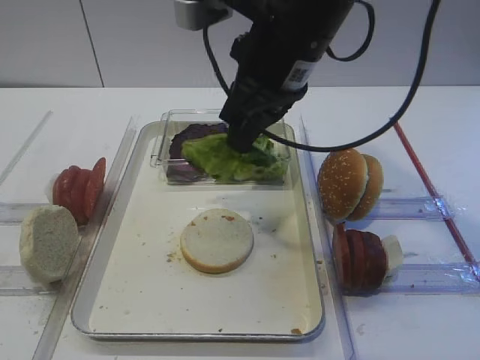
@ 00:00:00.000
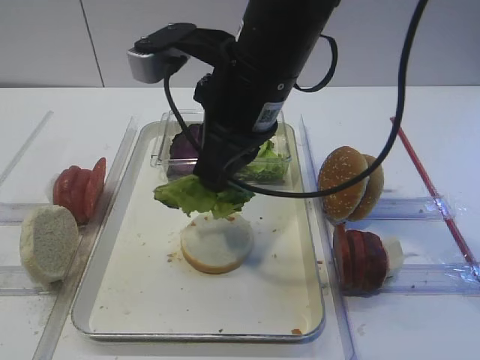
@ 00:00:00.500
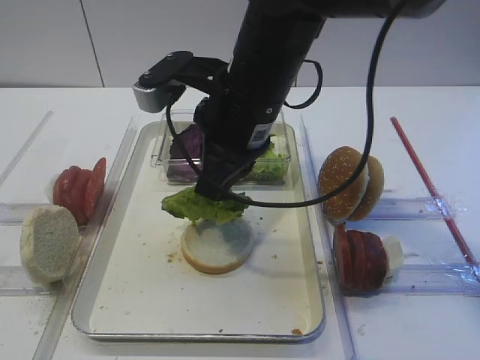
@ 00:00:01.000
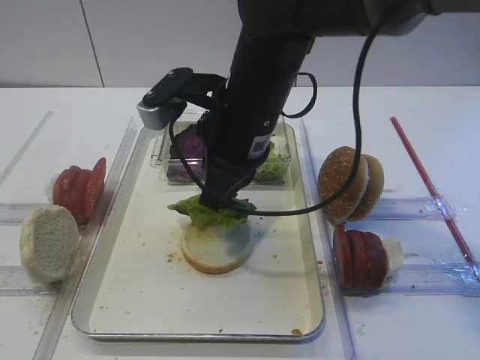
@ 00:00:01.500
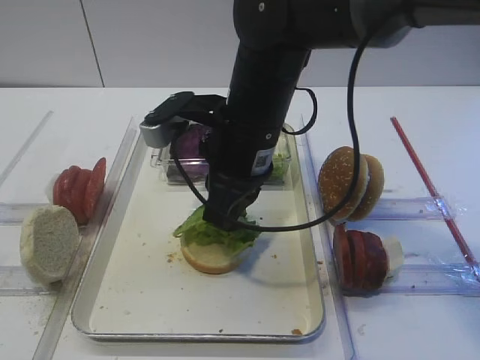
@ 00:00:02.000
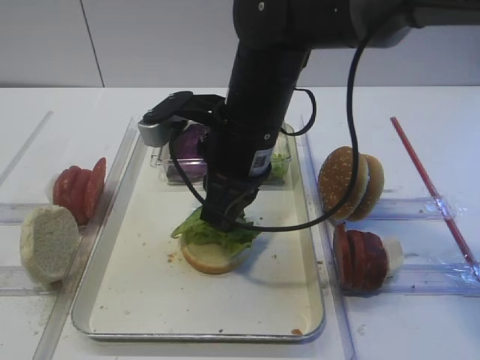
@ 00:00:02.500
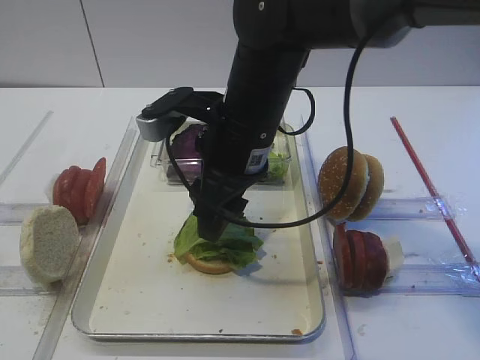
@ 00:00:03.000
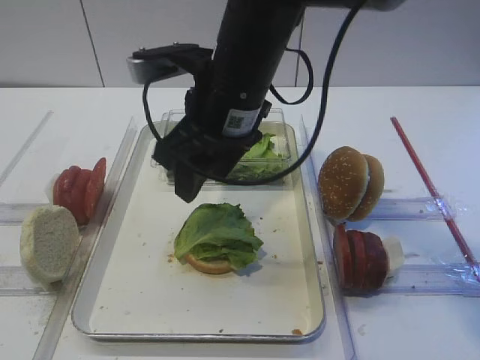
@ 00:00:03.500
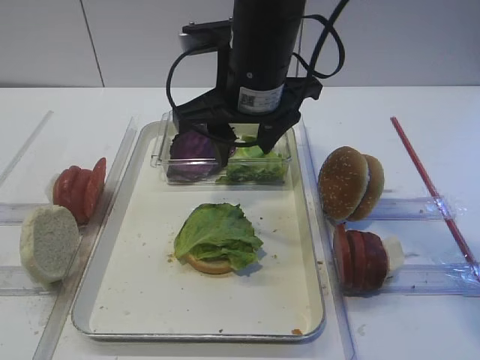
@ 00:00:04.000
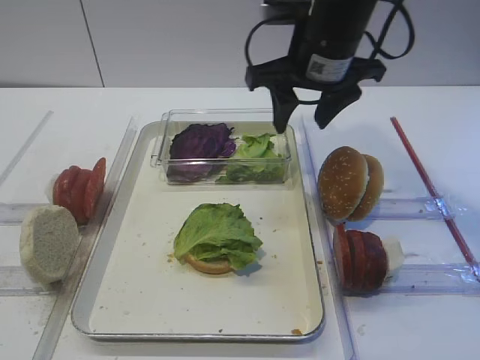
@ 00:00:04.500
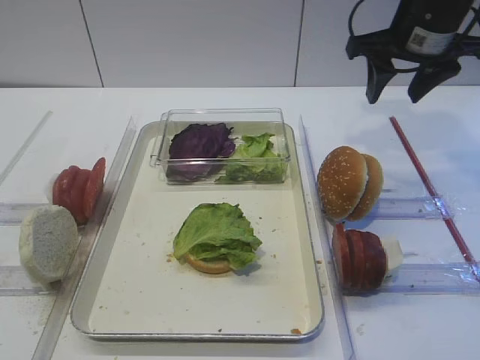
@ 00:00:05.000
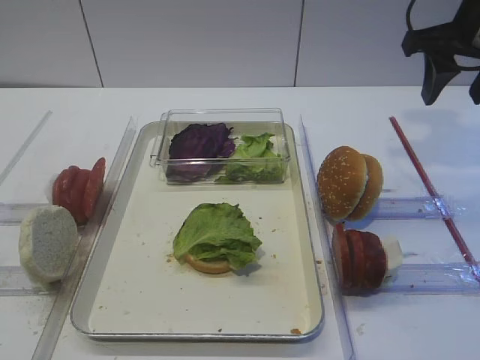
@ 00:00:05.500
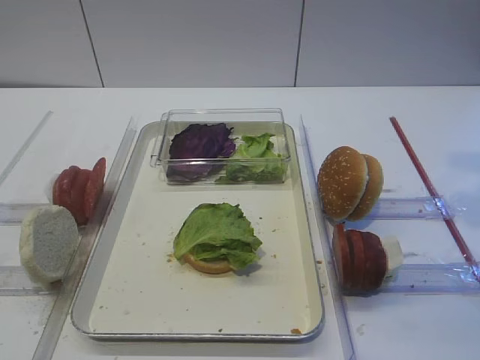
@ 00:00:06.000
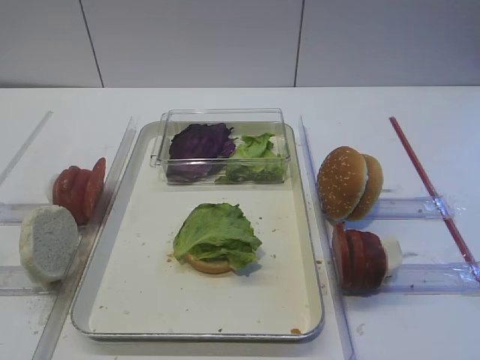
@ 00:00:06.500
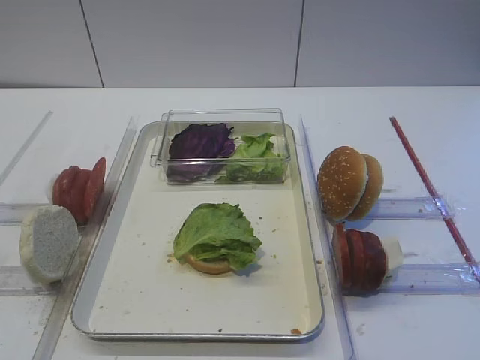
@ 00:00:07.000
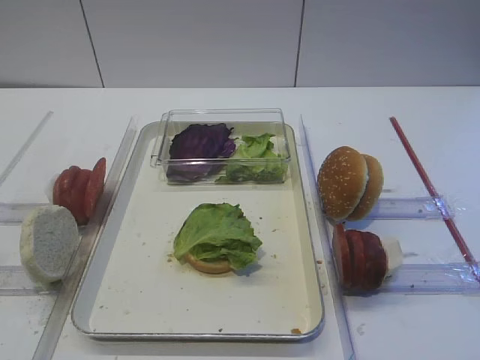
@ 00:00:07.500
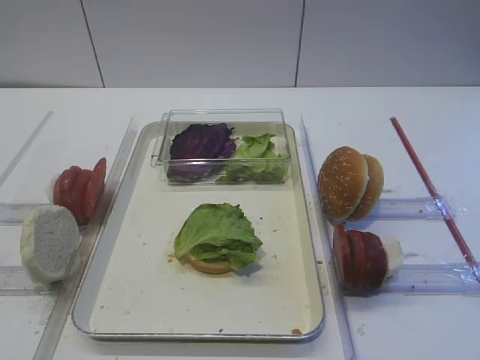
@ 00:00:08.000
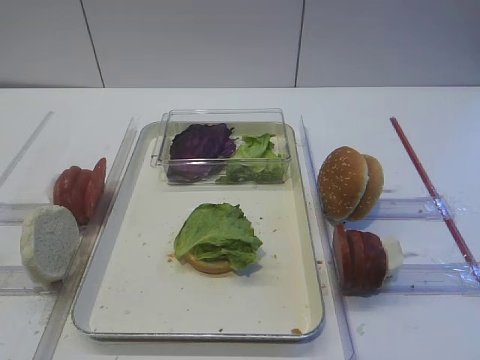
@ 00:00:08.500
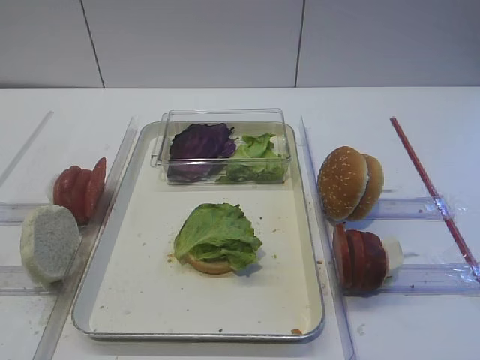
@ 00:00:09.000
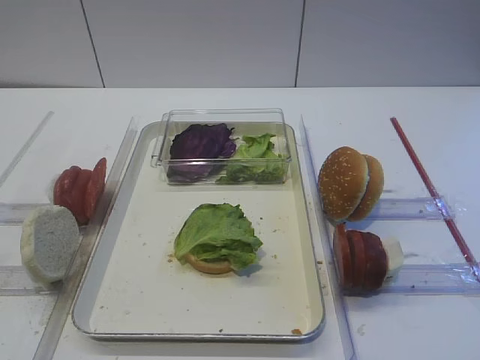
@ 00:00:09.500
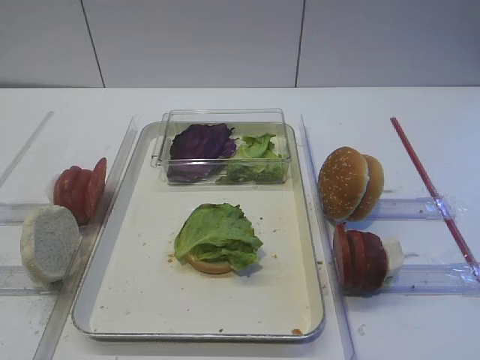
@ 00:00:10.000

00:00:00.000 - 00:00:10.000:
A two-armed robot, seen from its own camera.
Step, 00:00:00.000 - 00:00:03.000: Place the lettuce leaf on the bread slice with the right gripper.
00:00:00.000 - 00:00:02.000: The right gripper travels downward by approximately 10 cm.
00:00:02.000 - 00:00:04.000: The right gripper moves some 5 cm, and opens up.
00:00:04.000 - 00:00:06.000: The right gripper shifts about 25 cm to the right.
00:00:08.000 - 00:00:10.000: Neither gripper changes place.

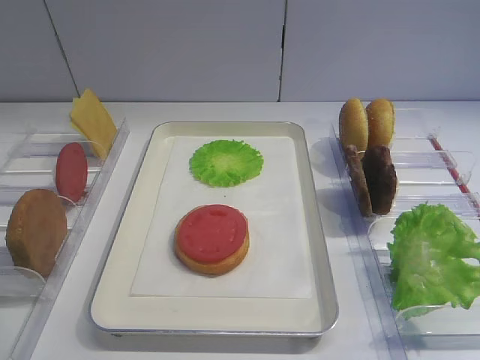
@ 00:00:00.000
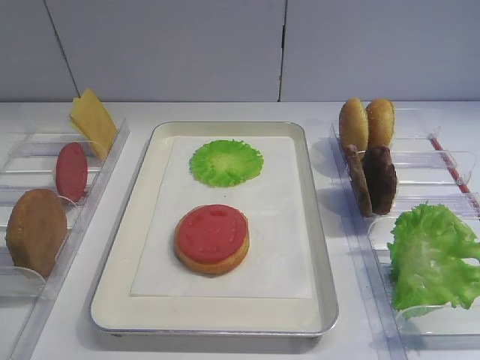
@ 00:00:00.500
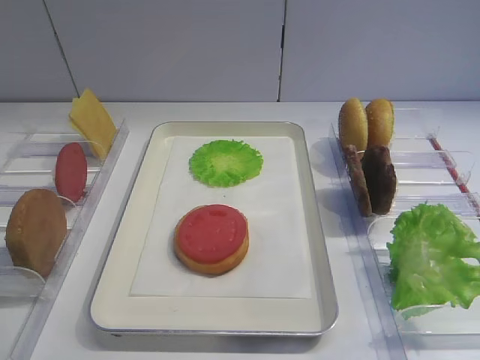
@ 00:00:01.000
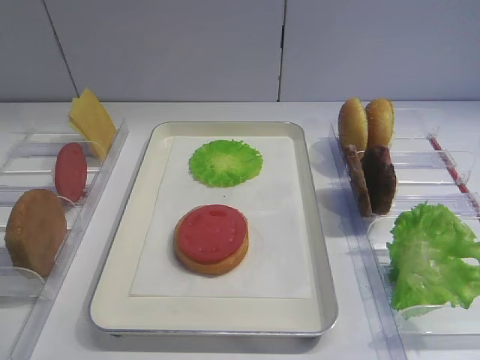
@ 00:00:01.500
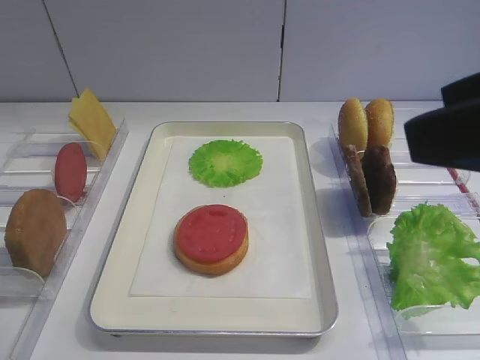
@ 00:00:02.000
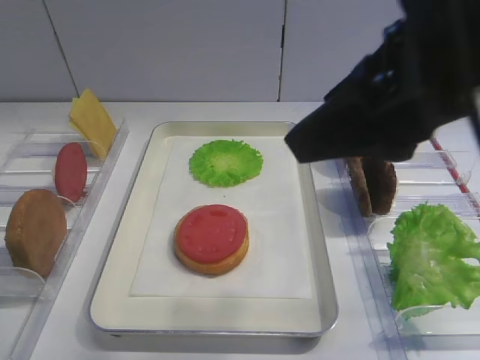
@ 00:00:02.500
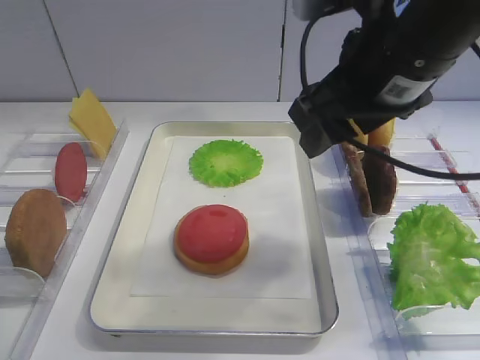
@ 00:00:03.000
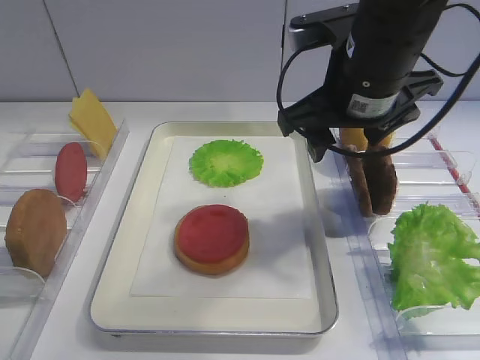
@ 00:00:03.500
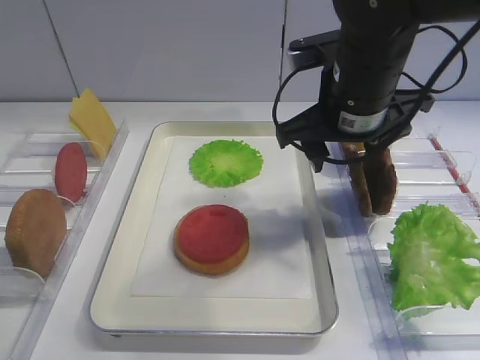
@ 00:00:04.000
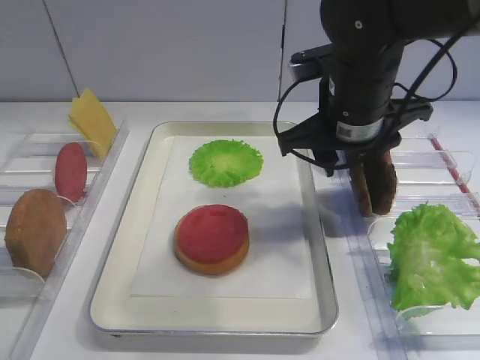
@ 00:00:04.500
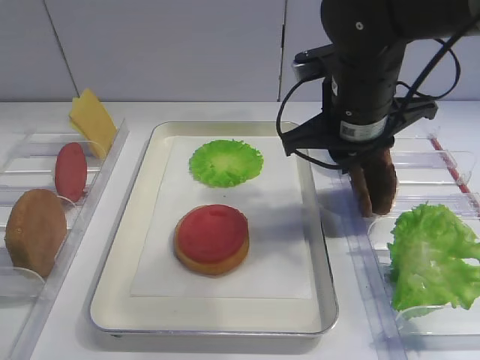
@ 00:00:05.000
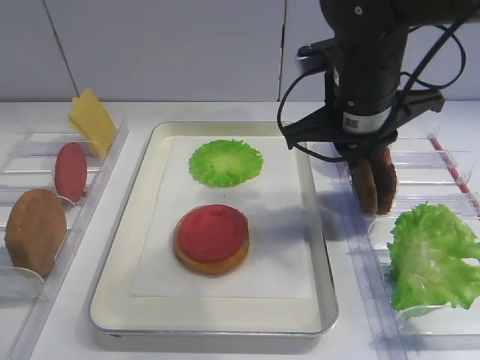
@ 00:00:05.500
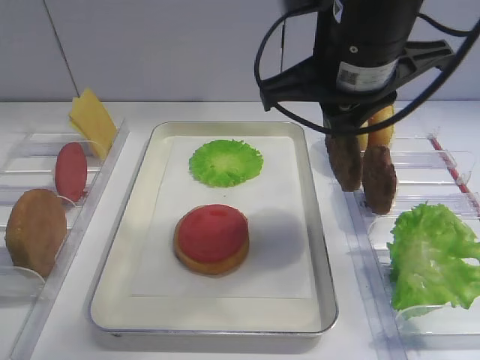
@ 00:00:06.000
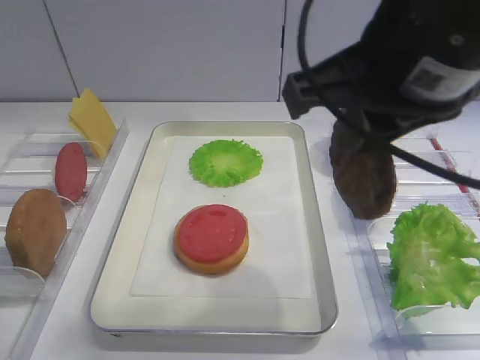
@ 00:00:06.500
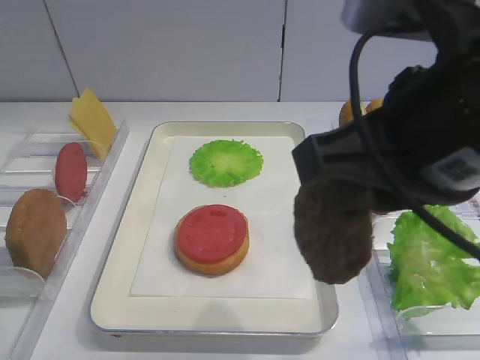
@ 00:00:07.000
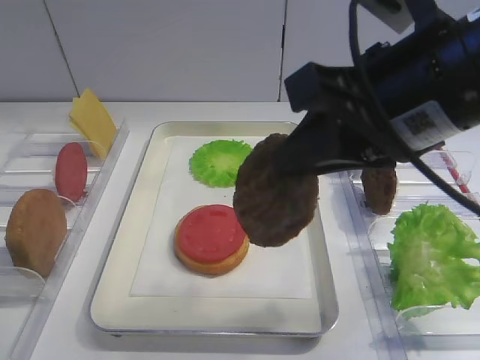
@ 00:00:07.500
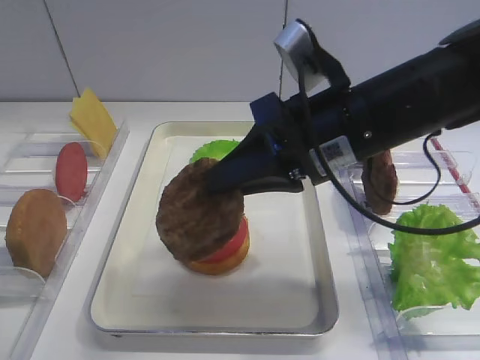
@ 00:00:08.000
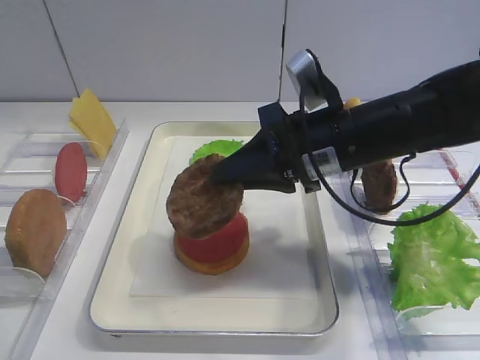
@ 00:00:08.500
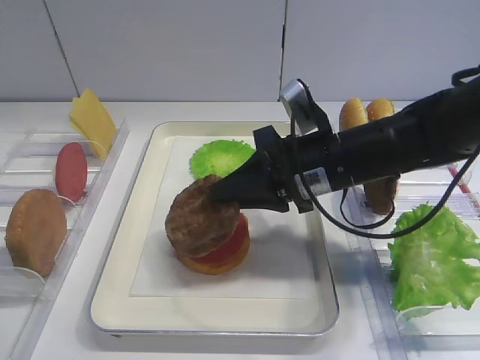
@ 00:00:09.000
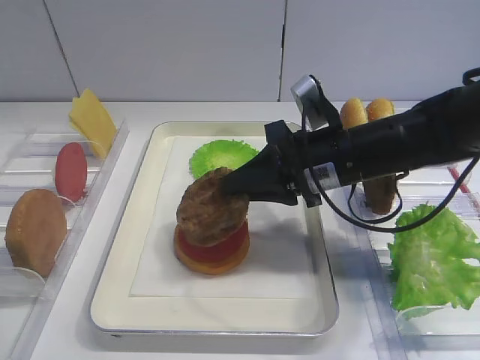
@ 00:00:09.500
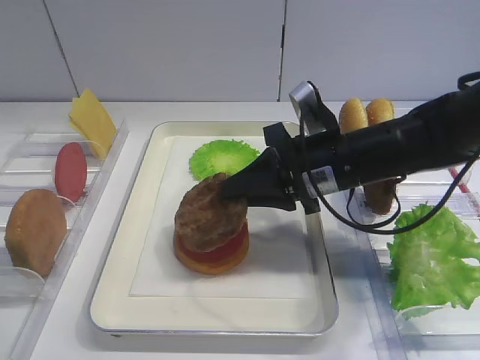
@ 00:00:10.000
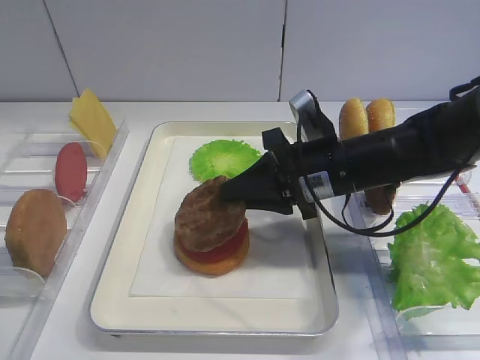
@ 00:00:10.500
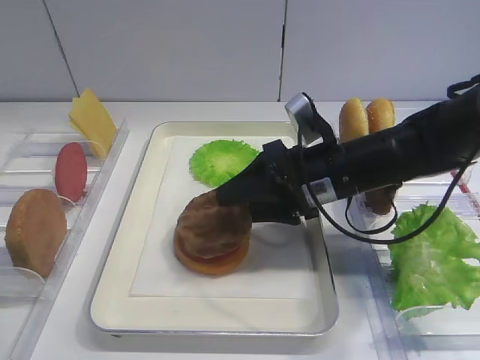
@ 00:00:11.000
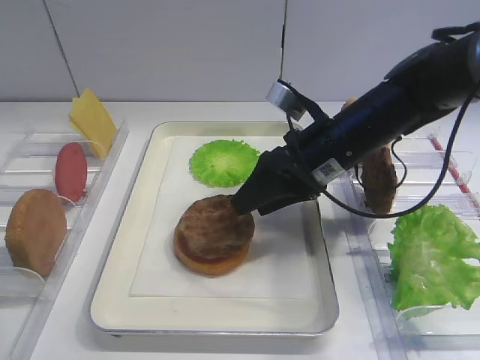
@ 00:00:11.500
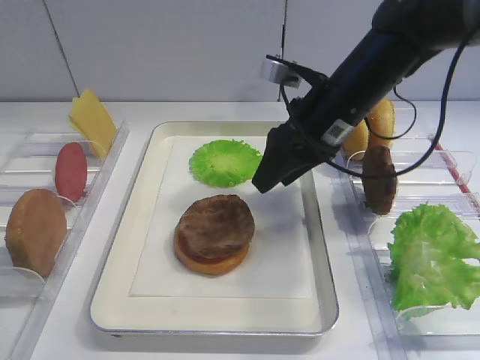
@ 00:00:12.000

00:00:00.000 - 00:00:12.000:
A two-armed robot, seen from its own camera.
Step, 00:00:00.000 - 00:00:05.500: Pick up the cutlet with the right gripper.
00:00:02.000 - 00:00:04.000: The right gripper goes some 25 cm forward, downward and to the left.
00:00:04.000 - 00:00:06.000: The right gripper moves upward, roughly 5 cm, and closes.
00:00:06.000 - 00:00:08.000: The right gripper goes roughly 5 cm downward, and moves approximately 15 cm backward and comes back.
00:00:08.000 - 00:00:10.000: The right gripper is displaced downward and forward by some 10 cm.
00:00:10.000 - 00:00:12.000: The right gripper moves forward, approximately 5 cm, and opens.

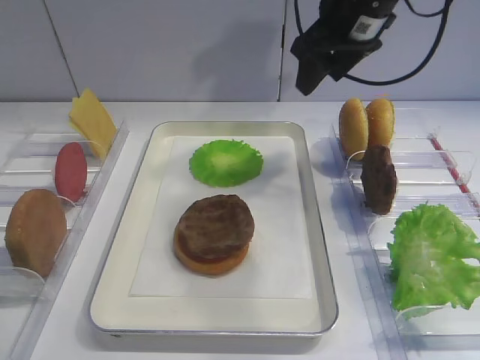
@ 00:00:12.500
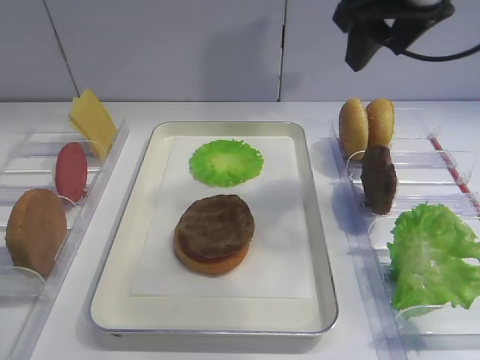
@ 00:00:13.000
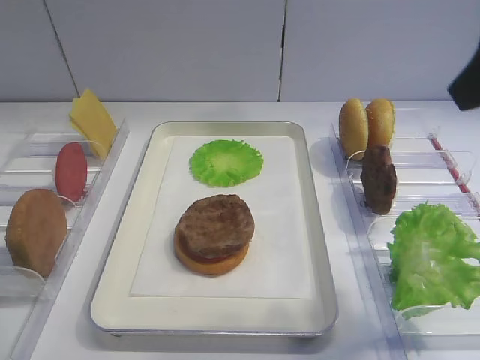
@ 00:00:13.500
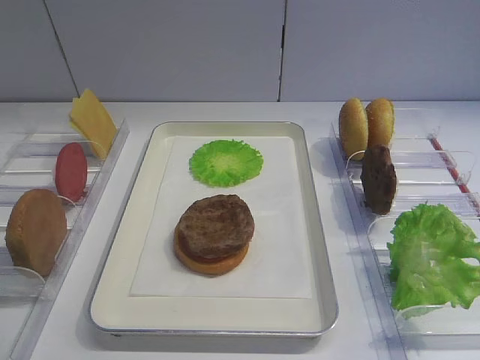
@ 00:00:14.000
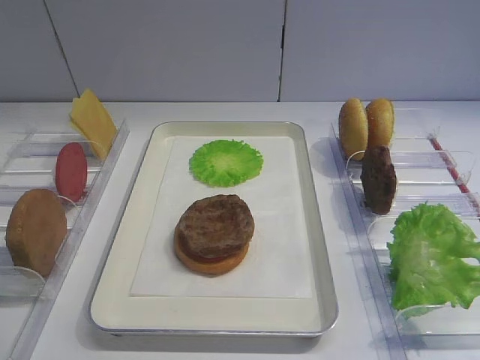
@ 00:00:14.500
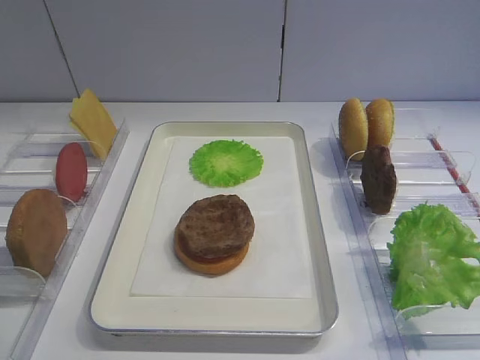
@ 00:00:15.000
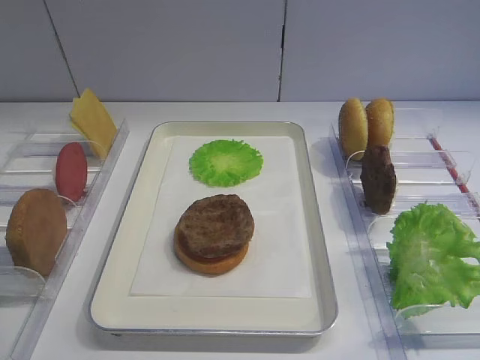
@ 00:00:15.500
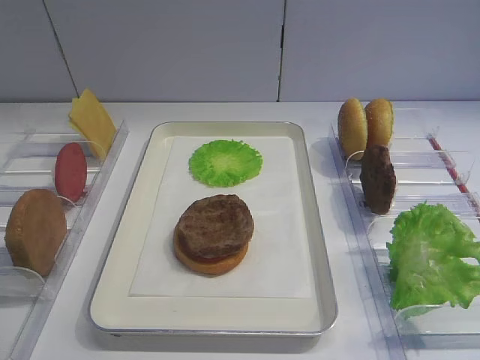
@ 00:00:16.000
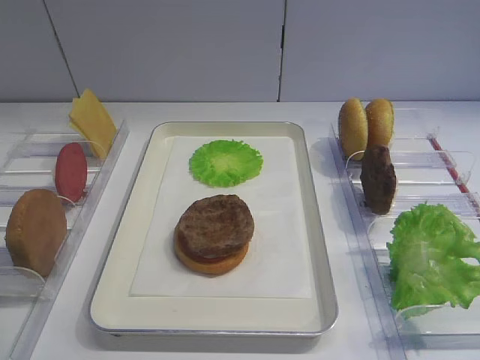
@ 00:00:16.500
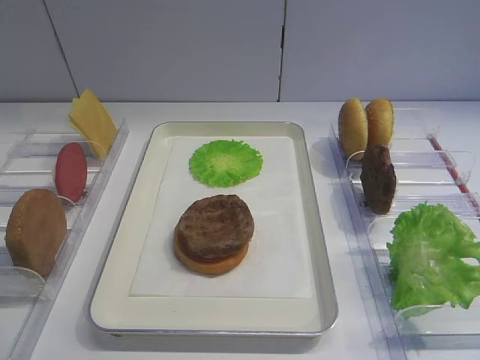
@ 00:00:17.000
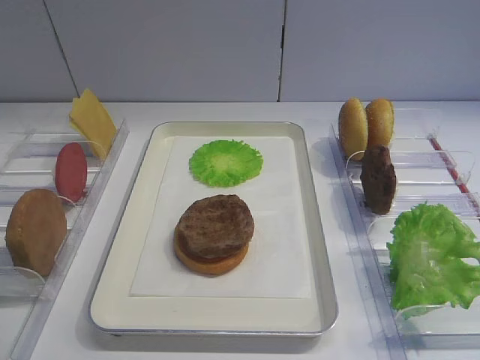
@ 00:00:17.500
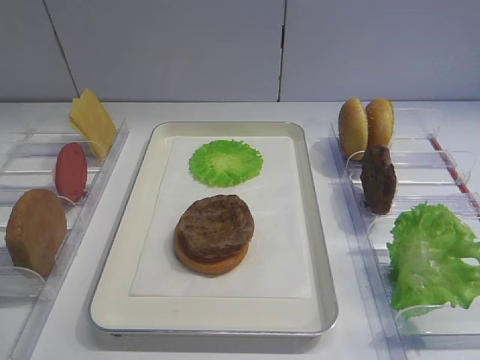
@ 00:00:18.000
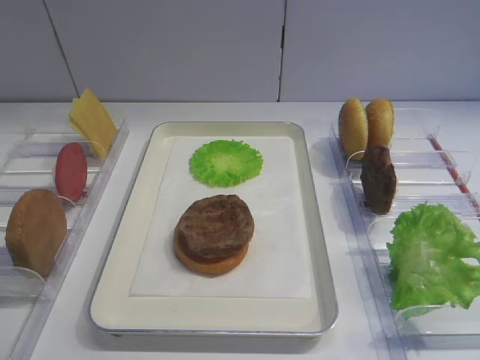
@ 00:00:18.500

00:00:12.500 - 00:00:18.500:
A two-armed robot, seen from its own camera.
00:00:12.500 - 00:00:14.500: The right gripper is displaced backward by about 40 cm.
00:00:16.500 - 00:00:18.500: Both grippers stay put.
